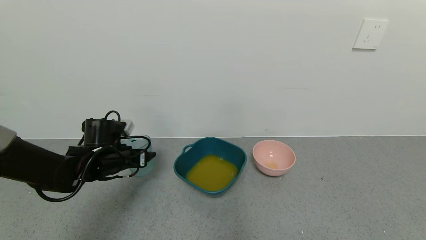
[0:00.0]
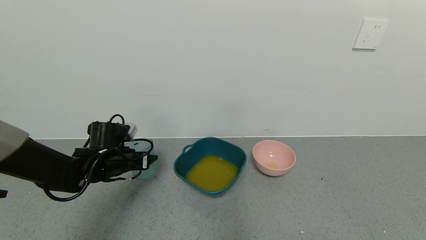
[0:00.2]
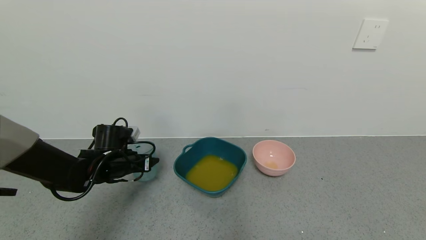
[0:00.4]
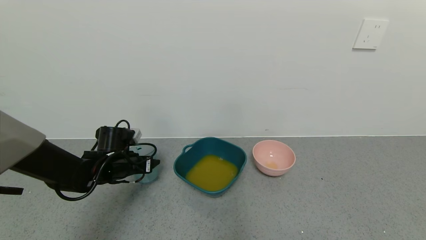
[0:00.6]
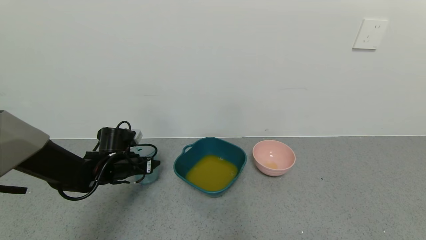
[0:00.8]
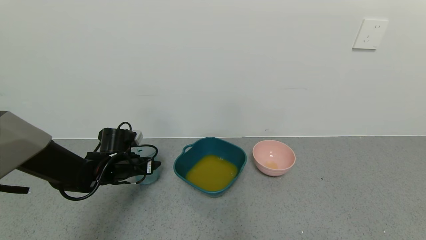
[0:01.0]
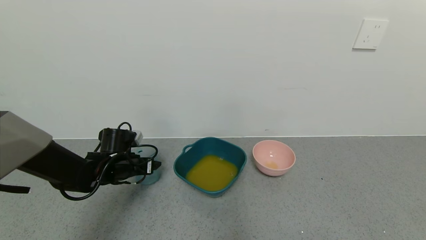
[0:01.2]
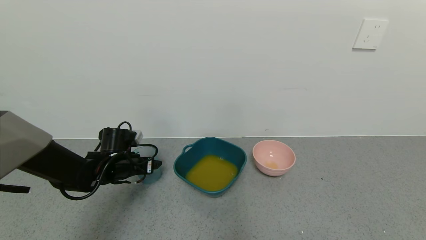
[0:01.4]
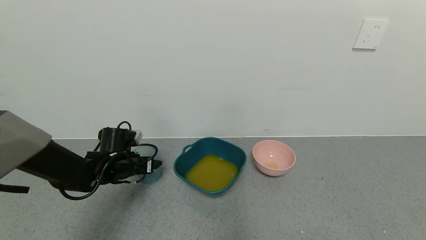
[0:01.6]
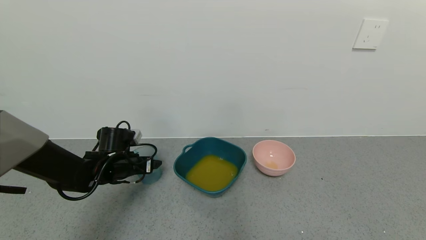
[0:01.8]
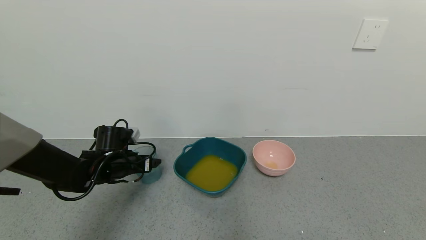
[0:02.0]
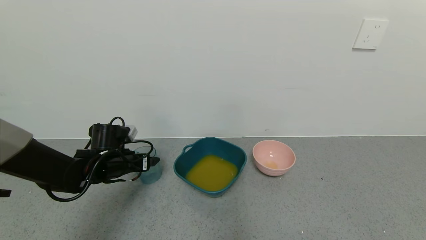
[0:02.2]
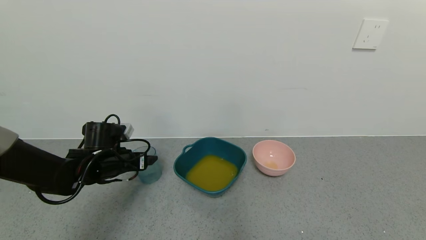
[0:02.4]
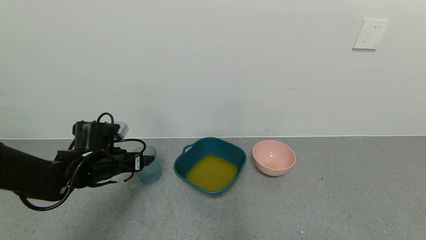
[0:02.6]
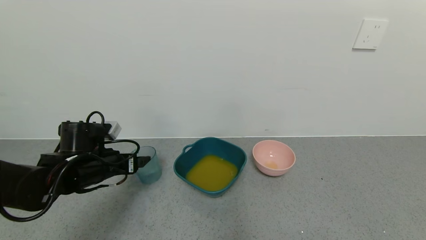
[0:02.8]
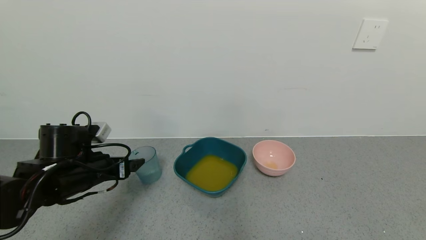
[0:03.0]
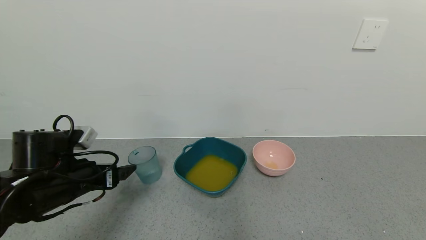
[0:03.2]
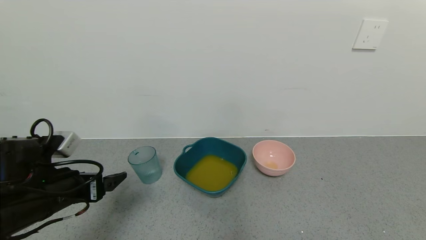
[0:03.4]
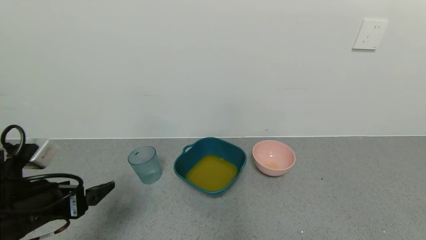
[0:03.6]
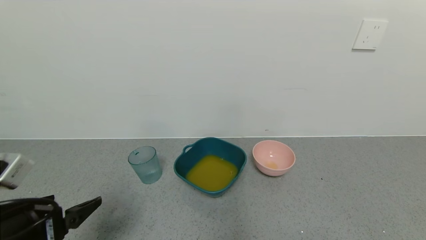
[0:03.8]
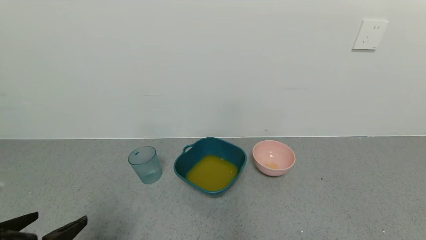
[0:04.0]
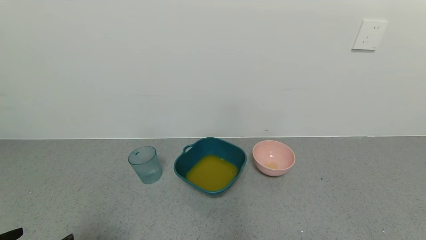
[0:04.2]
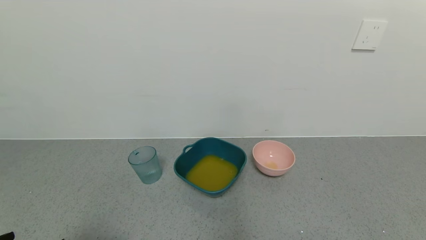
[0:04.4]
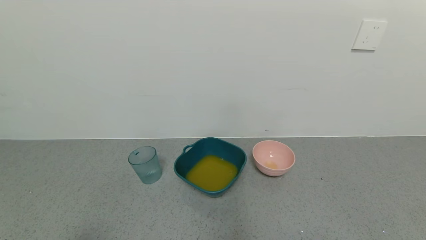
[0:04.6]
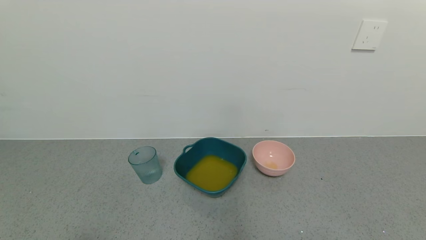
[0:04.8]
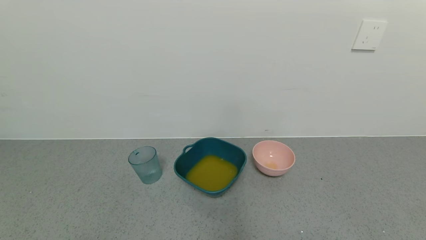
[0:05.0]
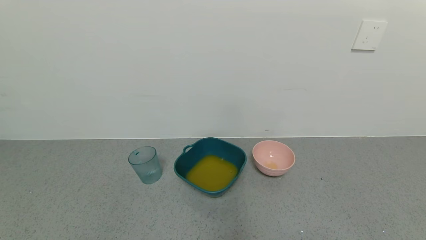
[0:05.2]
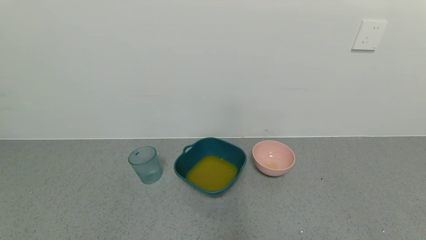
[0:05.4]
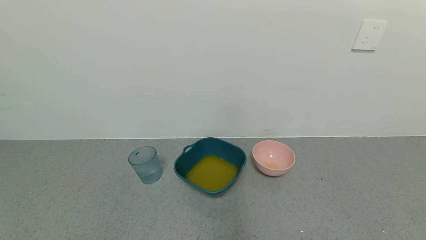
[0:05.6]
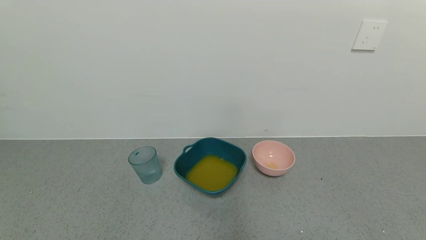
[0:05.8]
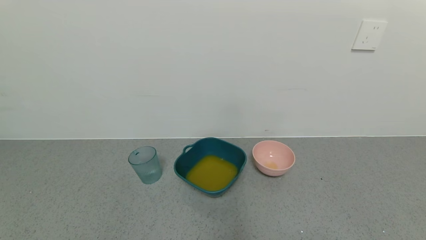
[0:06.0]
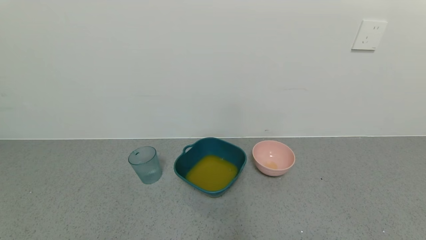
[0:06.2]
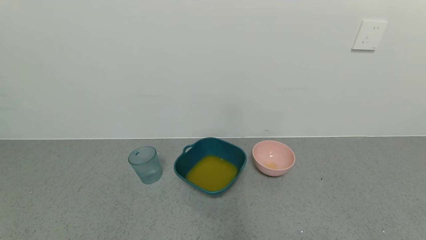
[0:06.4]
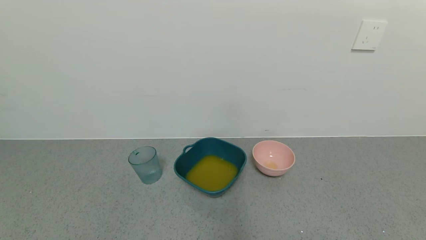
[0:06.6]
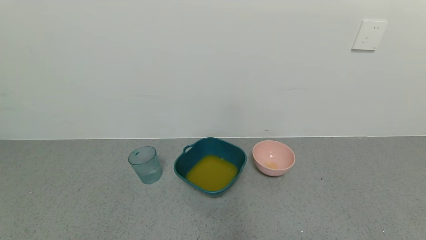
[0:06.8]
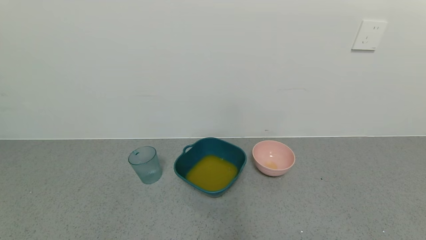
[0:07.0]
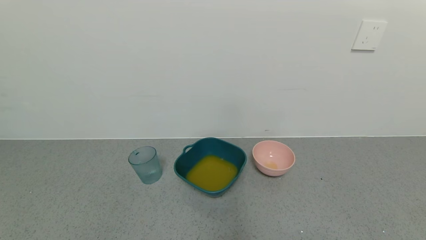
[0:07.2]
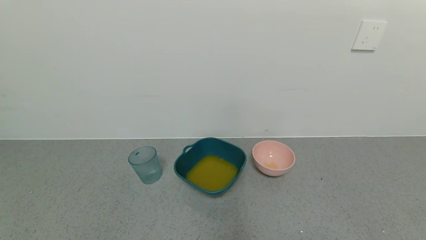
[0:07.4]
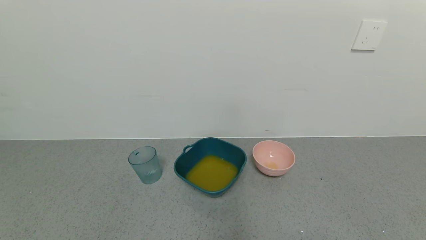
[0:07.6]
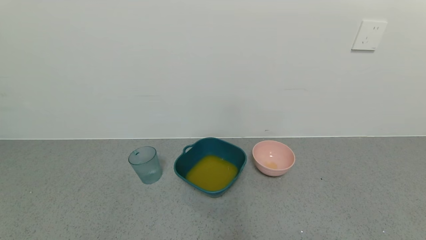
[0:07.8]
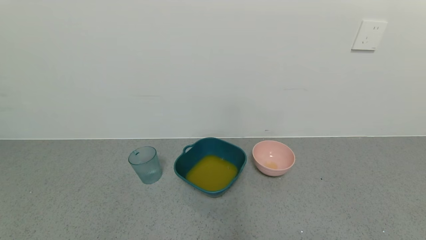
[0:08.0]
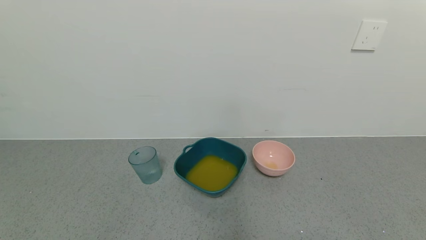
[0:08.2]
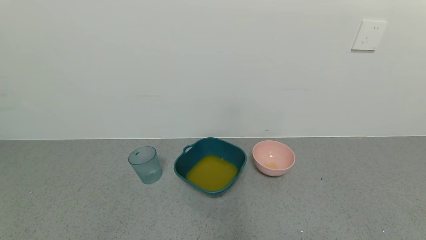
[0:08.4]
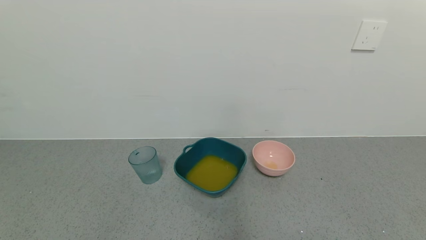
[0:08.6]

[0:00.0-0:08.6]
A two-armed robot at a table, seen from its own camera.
Task of the whole recording: use a gripper to pick up the cup and pour the liquid into a bowl or tray.
0:00.0 to 0:01.4: The left gripper opens.
0:01.4 to 0:02.8: The left gripper shifts approximately 10 cm backward and upward.
0:02.8 to 0:04.4: The left gripper moves backward, about 25 cm.
